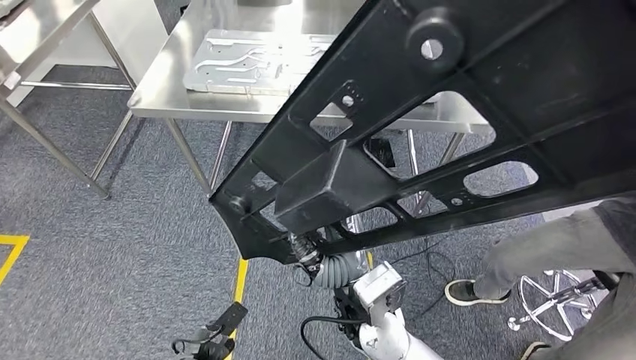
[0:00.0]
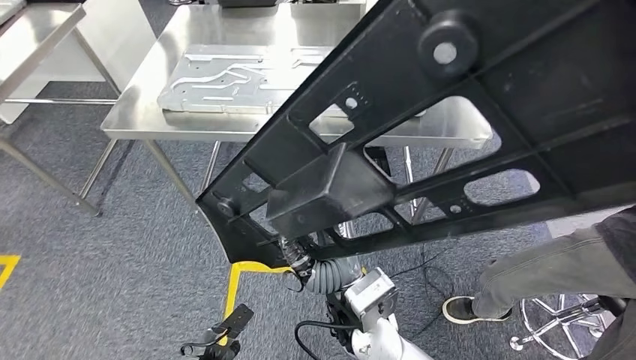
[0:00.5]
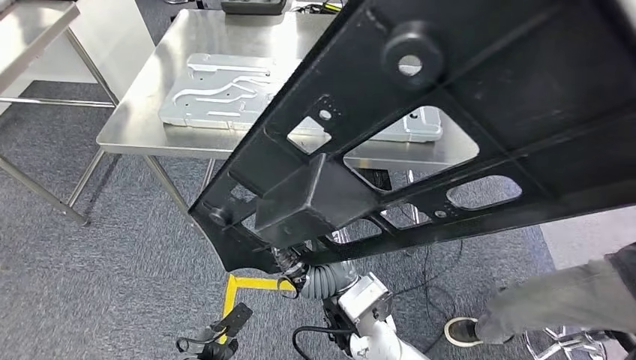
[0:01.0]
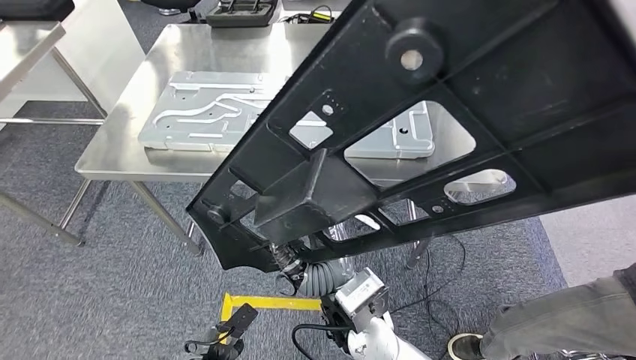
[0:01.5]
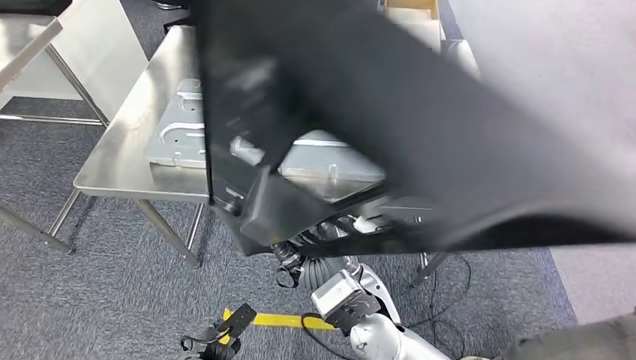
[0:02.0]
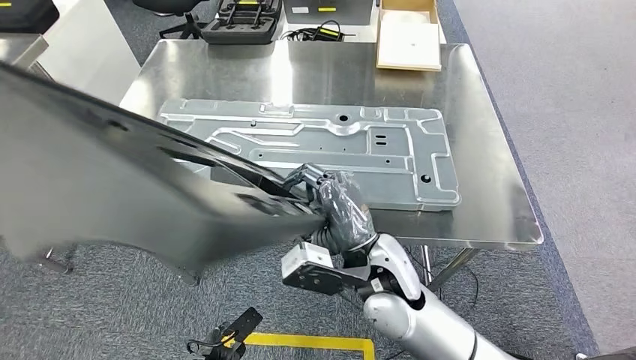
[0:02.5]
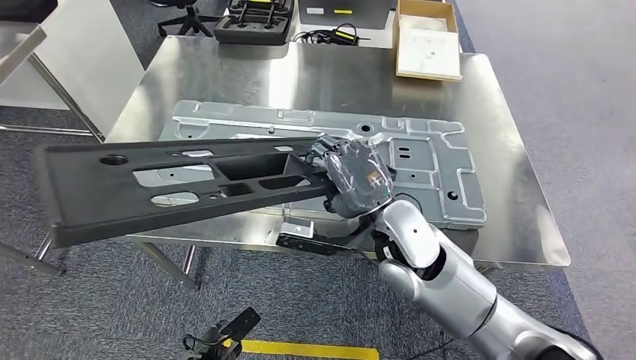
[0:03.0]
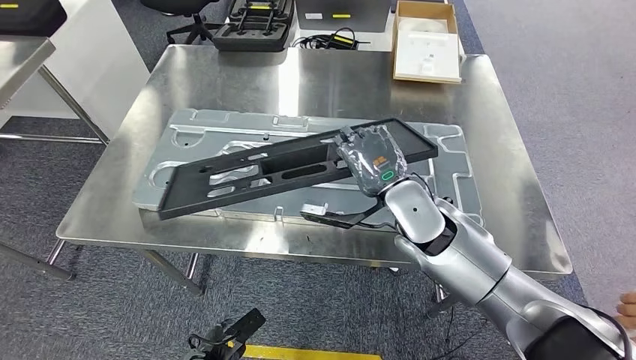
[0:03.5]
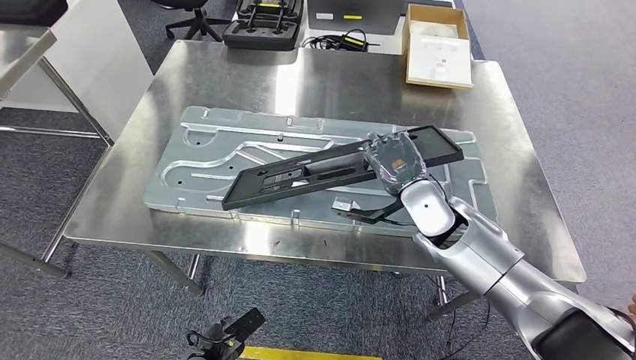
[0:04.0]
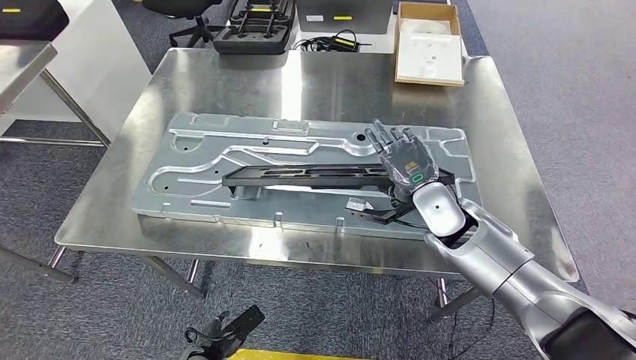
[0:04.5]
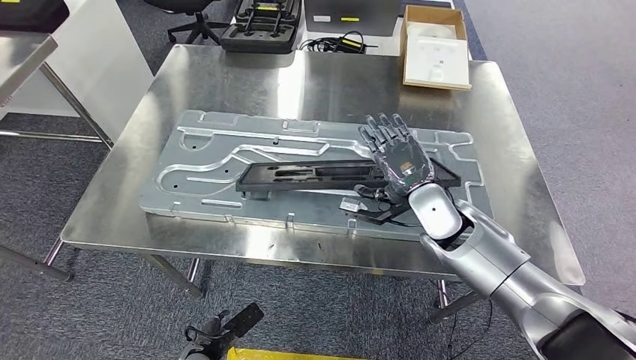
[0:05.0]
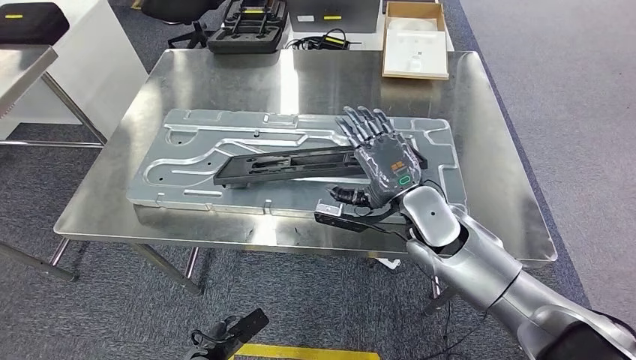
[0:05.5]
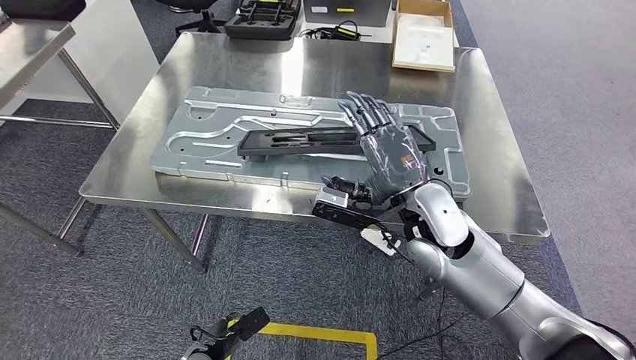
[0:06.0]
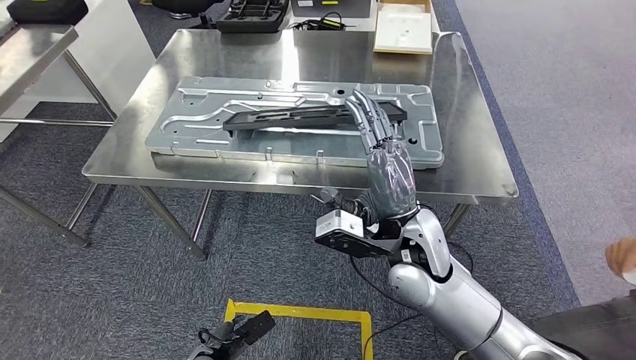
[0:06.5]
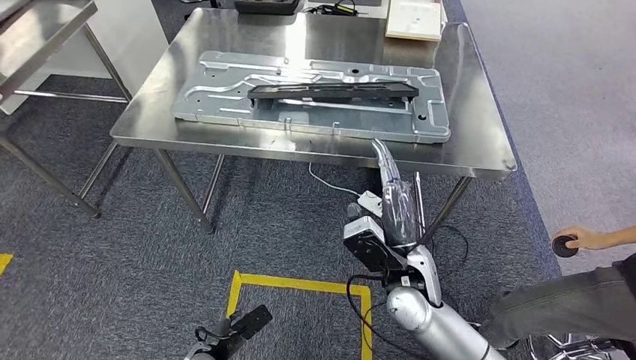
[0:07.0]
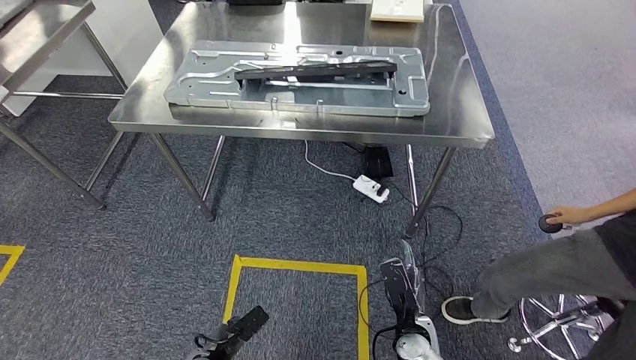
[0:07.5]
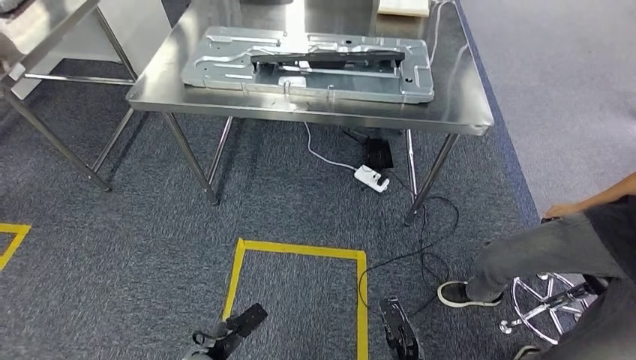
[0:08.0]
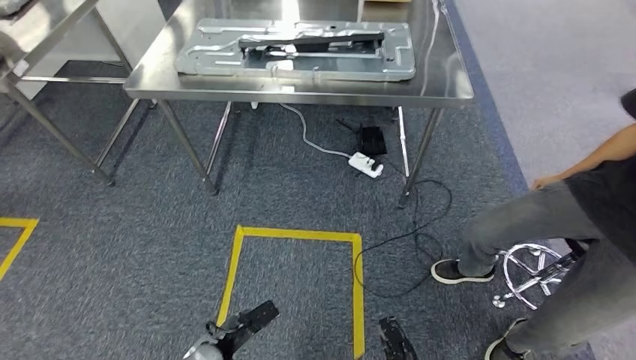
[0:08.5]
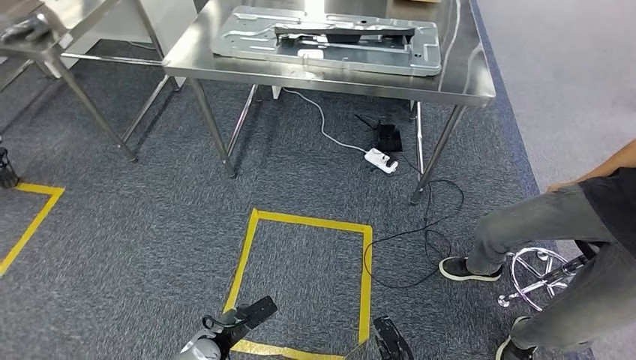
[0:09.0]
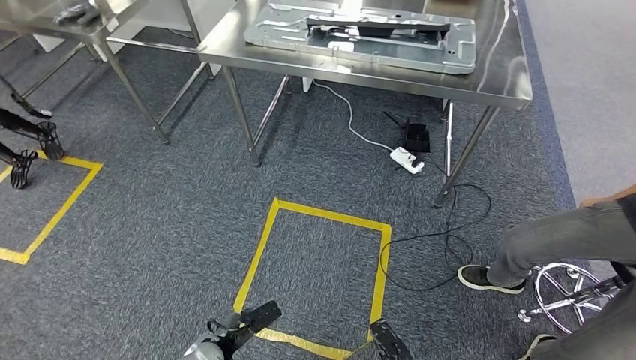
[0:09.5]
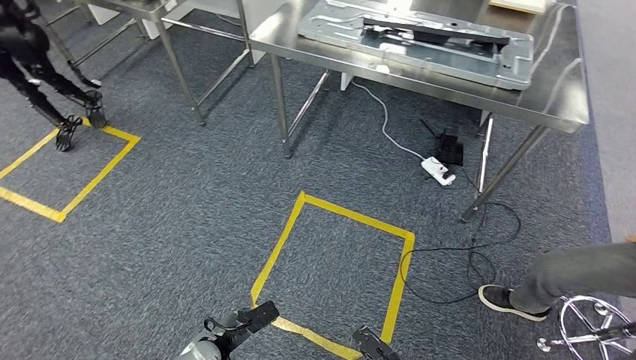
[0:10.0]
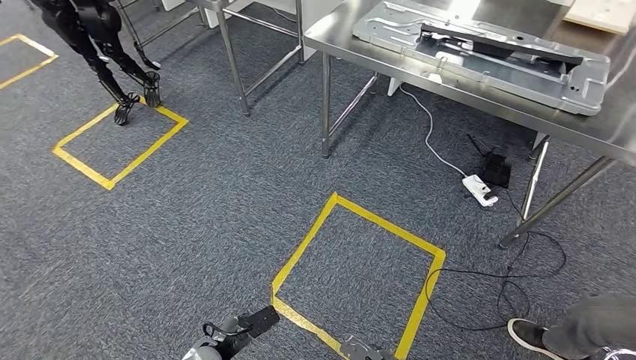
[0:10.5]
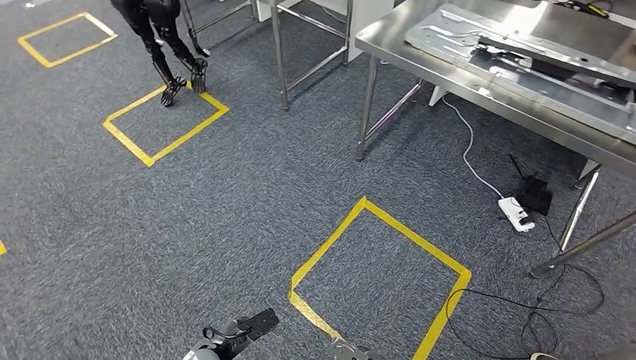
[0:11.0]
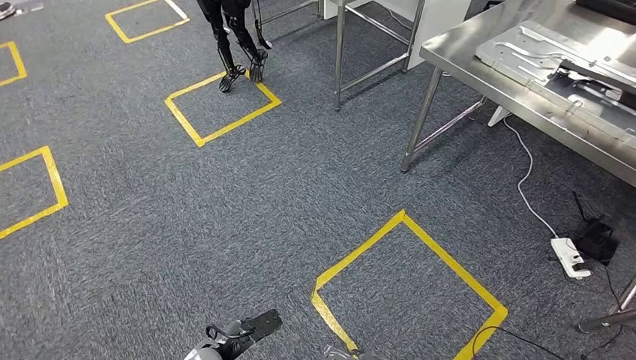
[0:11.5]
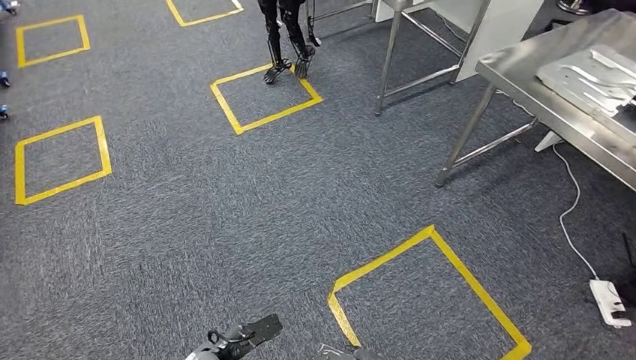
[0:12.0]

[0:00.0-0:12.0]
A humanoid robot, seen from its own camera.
Step, 0:00.0 to 0:06.5: Insert the large material into the corresponding hole on the workbench.

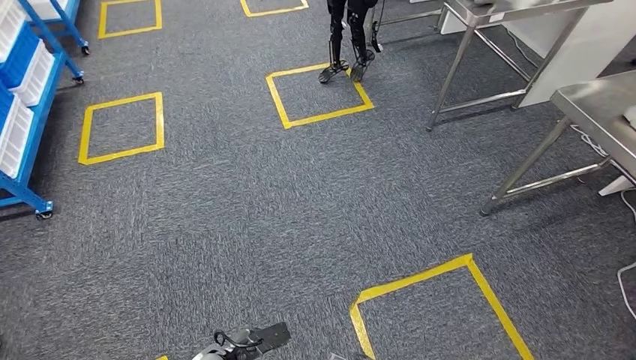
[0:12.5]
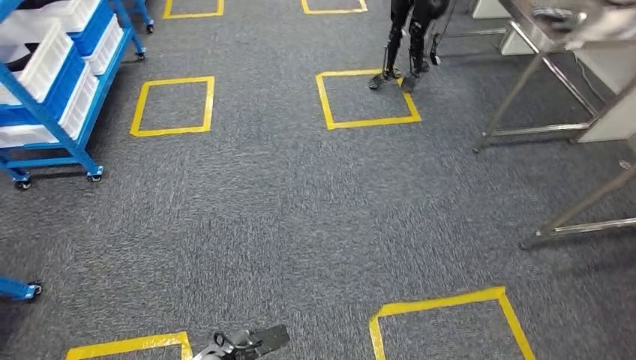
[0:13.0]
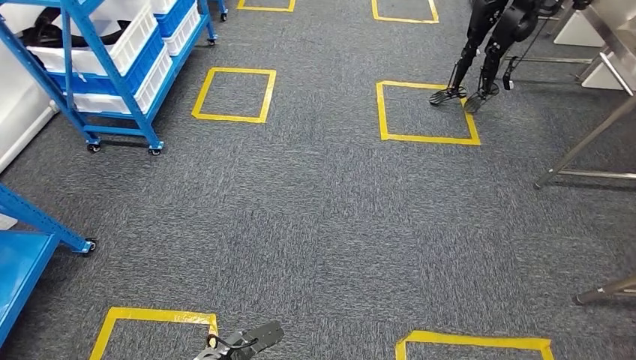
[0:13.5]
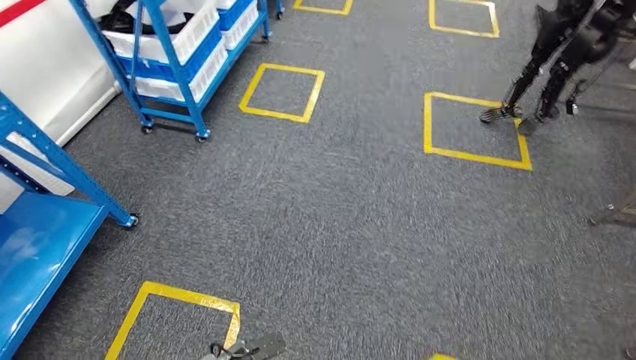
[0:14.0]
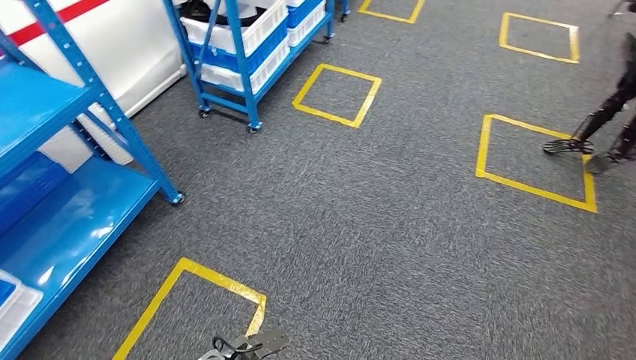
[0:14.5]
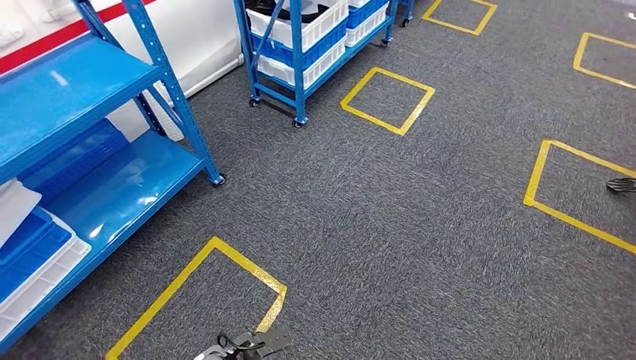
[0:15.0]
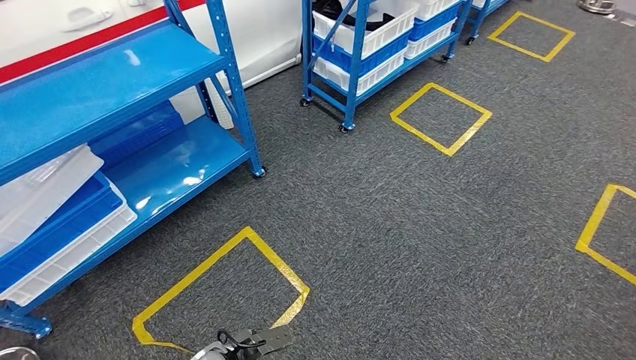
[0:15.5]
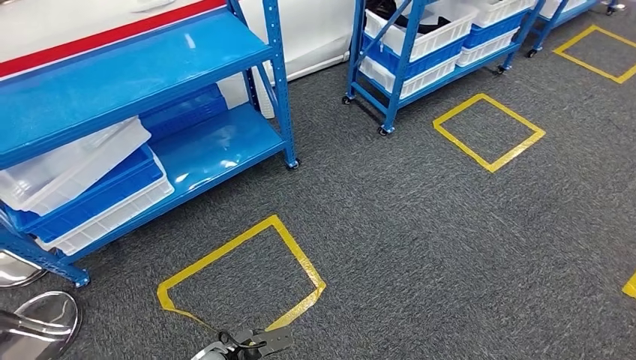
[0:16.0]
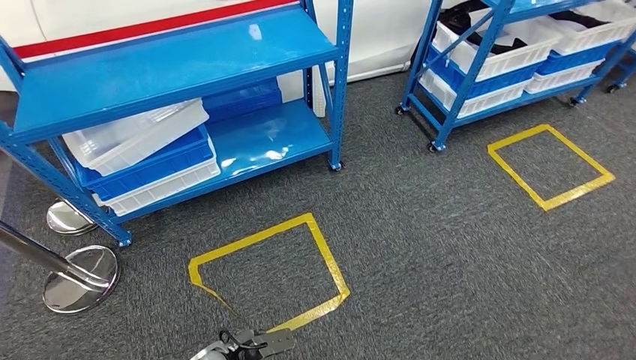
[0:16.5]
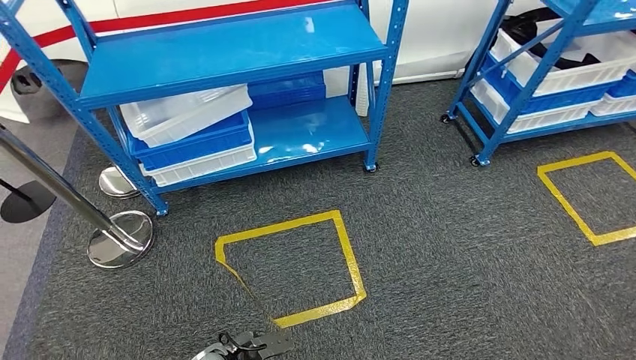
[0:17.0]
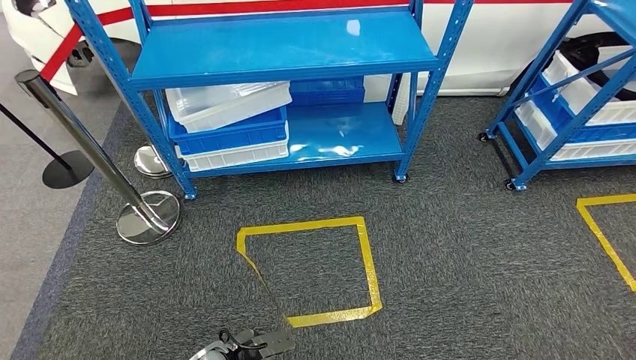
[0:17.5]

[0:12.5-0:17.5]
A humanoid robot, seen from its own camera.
Step, 0:12.5 to 0:17.5: Move to the initial position of the shelf.
